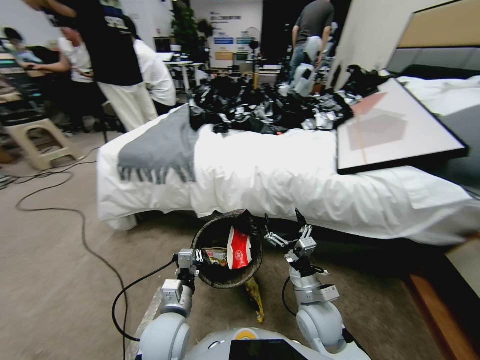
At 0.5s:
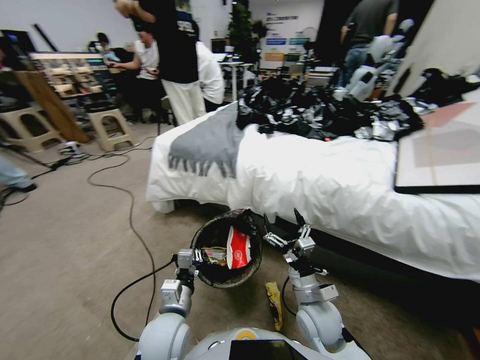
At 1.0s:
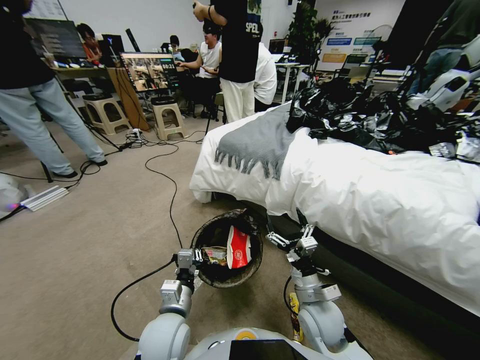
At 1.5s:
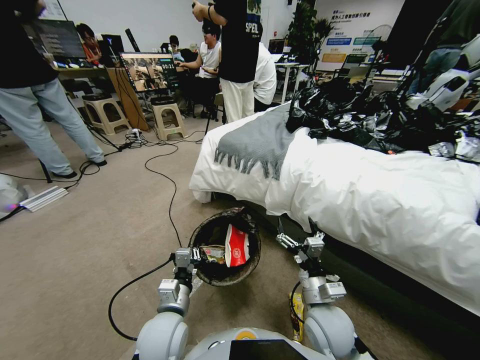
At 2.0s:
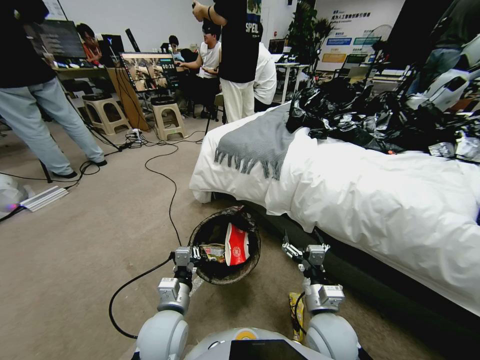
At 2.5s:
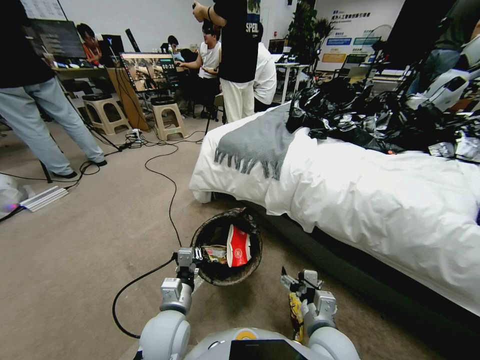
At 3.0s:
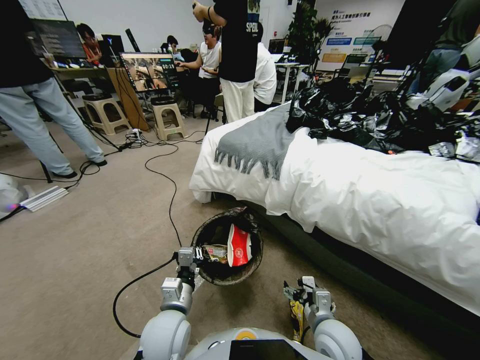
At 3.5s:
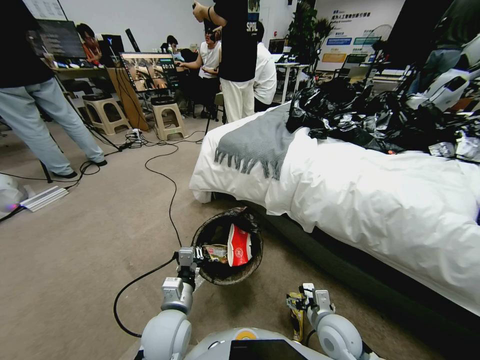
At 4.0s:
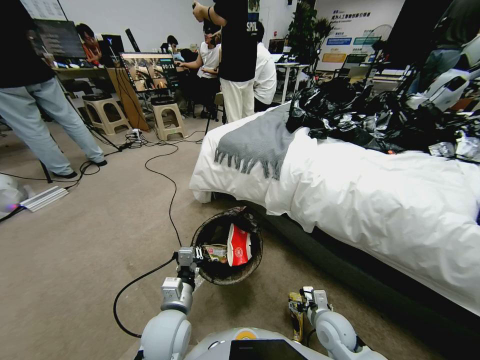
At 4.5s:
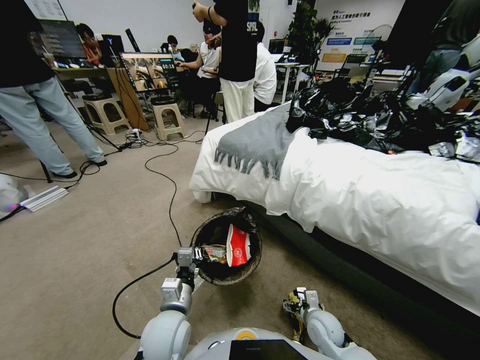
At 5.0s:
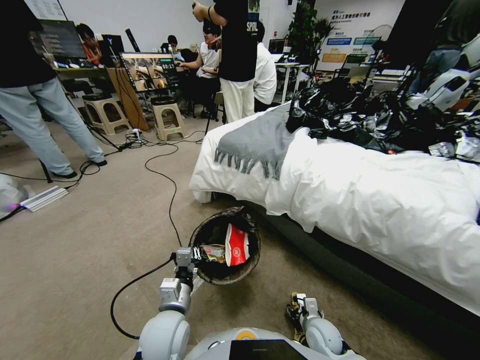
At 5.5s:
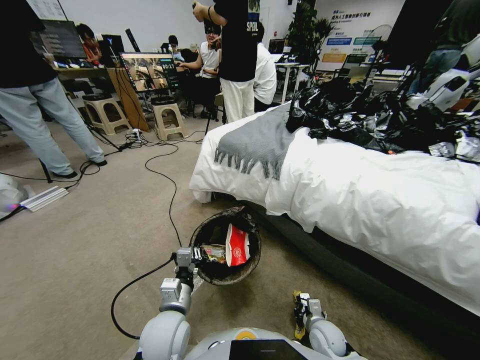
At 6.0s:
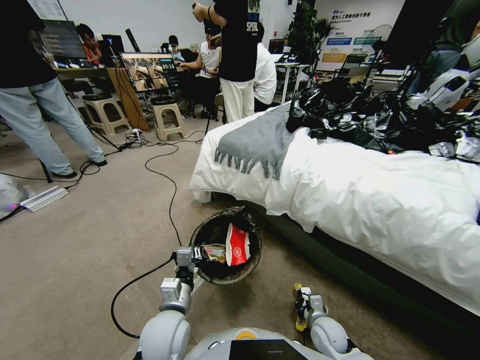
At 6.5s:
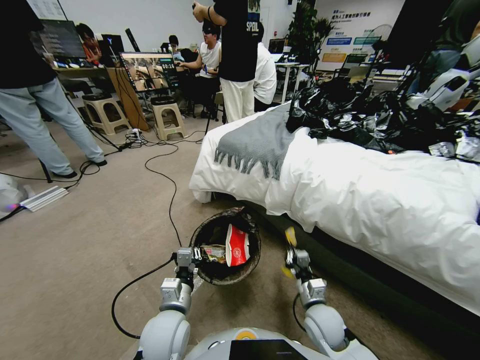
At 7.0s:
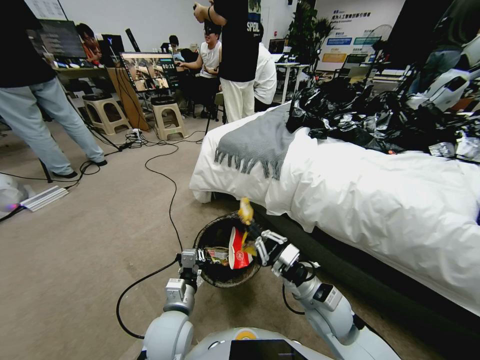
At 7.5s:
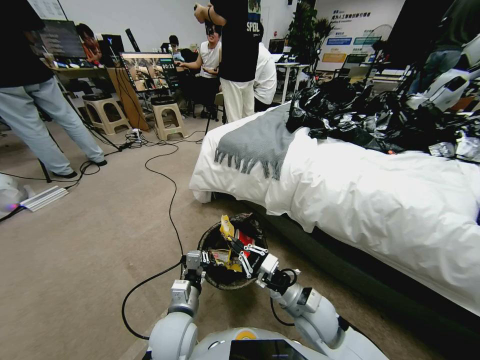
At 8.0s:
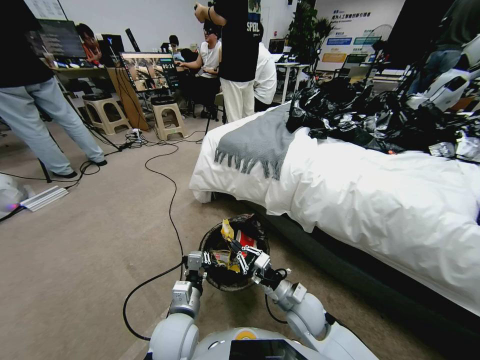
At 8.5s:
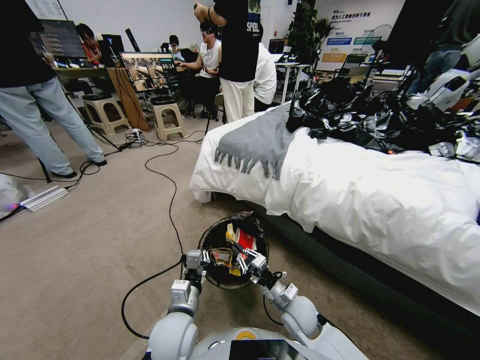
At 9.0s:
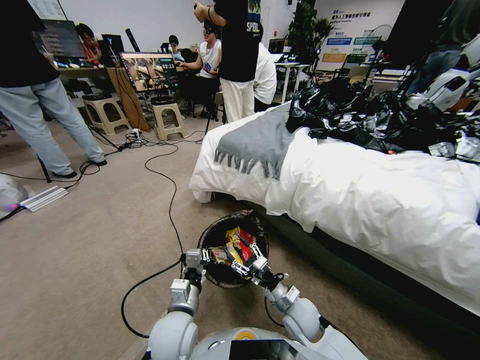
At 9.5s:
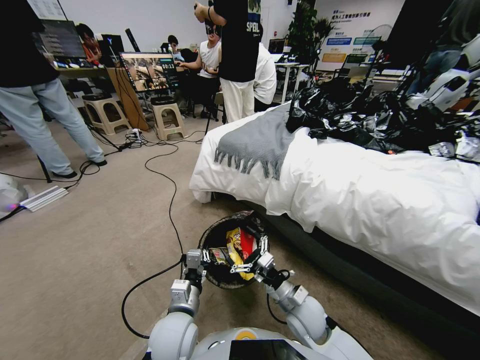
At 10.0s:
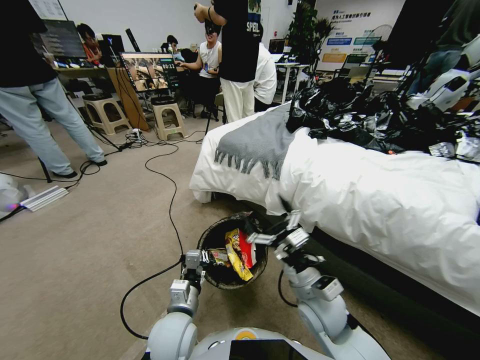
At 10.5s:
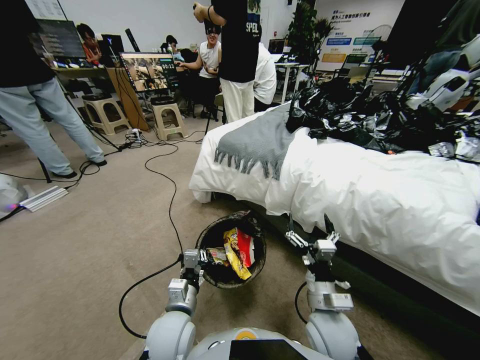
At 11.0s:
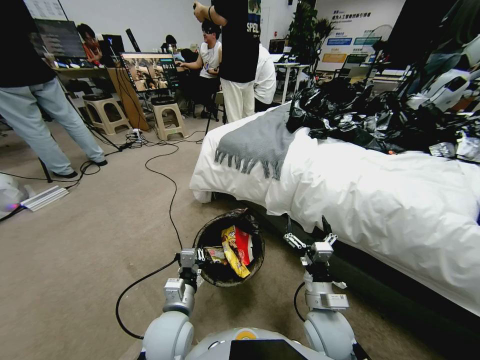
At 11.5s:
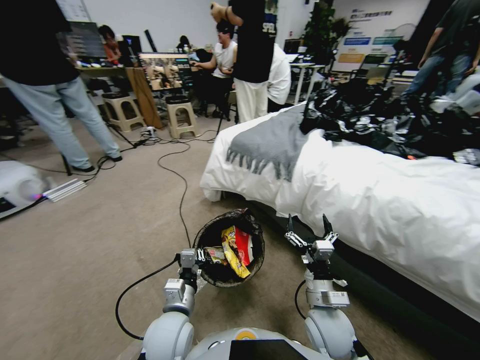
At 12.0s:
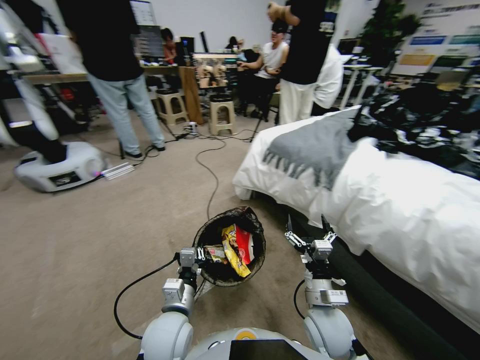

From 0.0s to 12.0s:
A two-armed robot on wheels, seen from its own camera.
Task of the whole recording: Pick up the trash bin, then pick up the garbage from the floor and place it into the trash bin.
From 2.0s to 4.0s: The right gripper is displaced downward and to the right by roughly 15 cm.
From 4.0s to 6.0s: The right gripper closes up.
From 6.0s to 8.0s: The right gripper goes some 15 cm to the left and upward.
From 8.0s to 10.0s: The right gripper travels upward by some 10 cm, and opens up.
From 10.0s to 12.0s: The right gripper travels downward by some 5 cm.

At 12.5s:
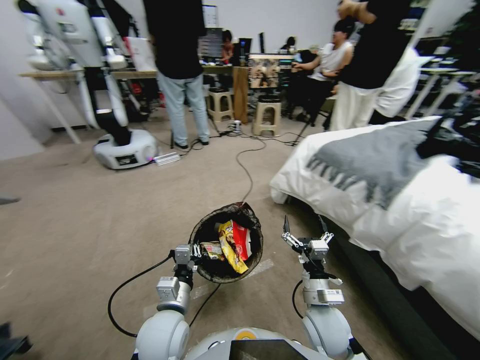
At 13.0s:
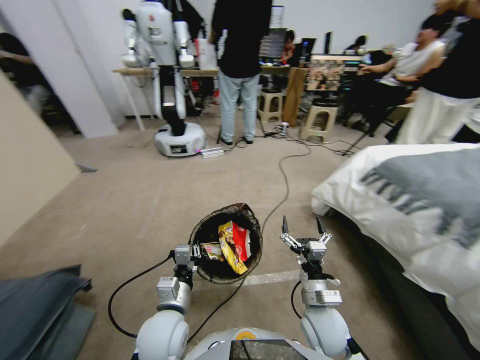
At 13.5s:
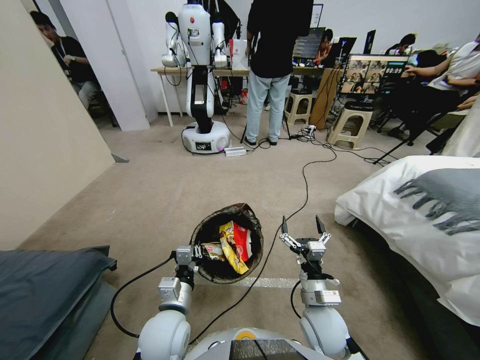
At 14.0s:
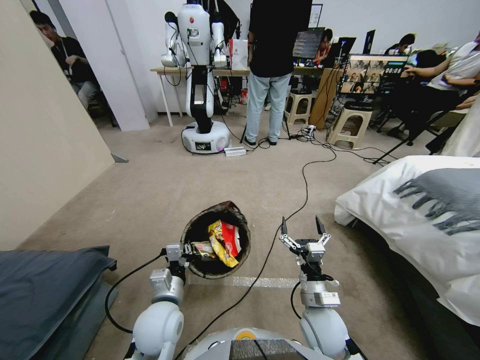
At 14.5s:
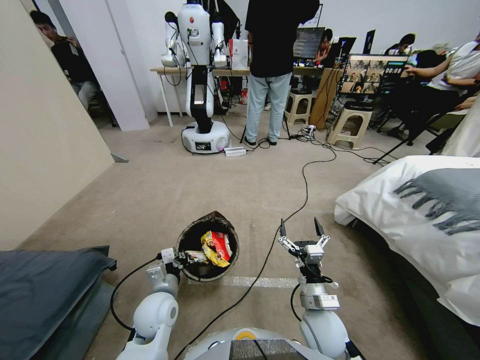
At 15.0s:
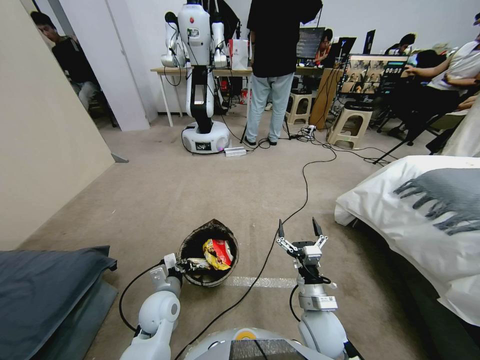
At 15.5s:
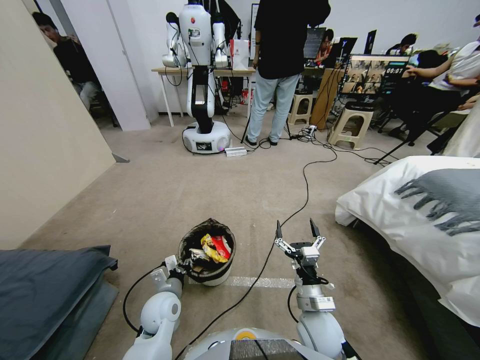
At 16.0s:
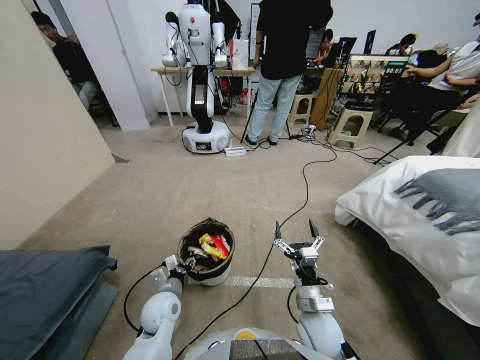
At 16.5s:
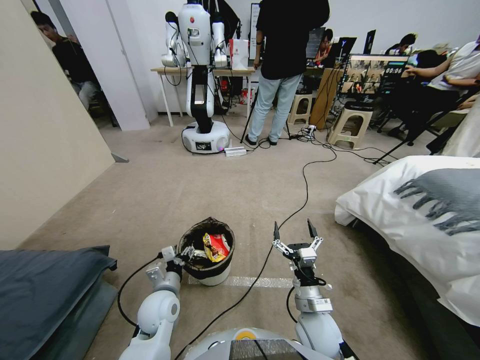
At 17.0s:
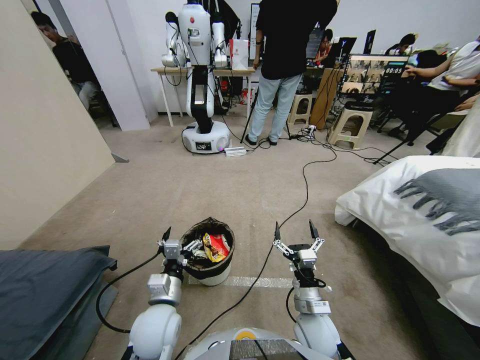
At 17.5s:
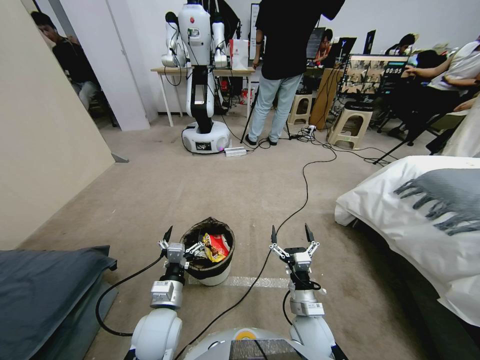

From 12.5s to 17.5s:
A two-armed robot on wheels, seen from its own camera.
Task of the whole recording: Pick up the trash bin, then pick up the garbage from the floor and place it into the trash bin.
From 12.5s to 15.0s: The left gripper moves downward, forward and to the left, approximately 10 cm.
From 15.0s to 17.5s: The left gripper heads backward and upward, covering approximately 5 cm, and opens up.

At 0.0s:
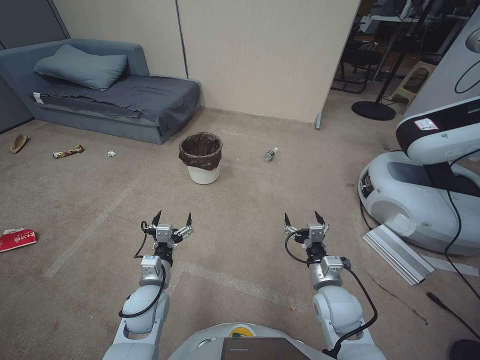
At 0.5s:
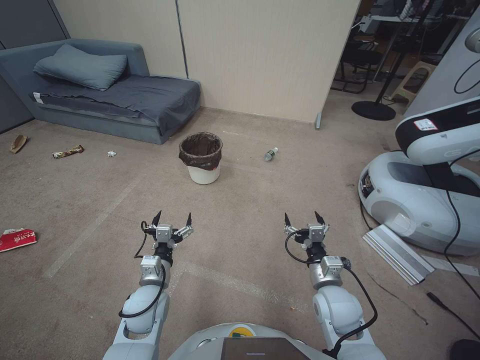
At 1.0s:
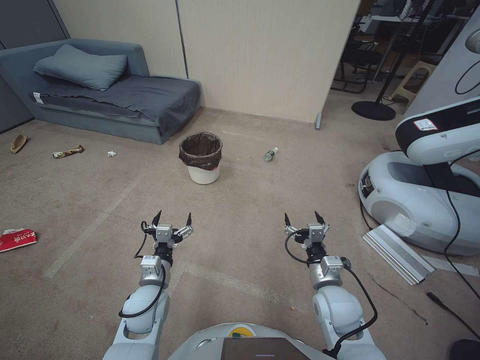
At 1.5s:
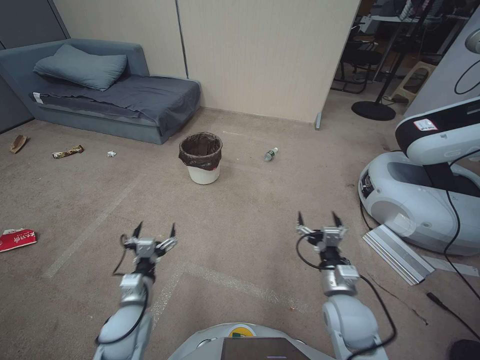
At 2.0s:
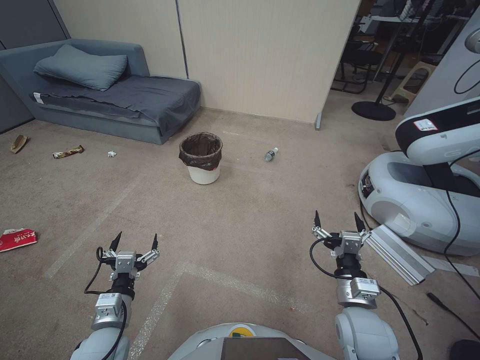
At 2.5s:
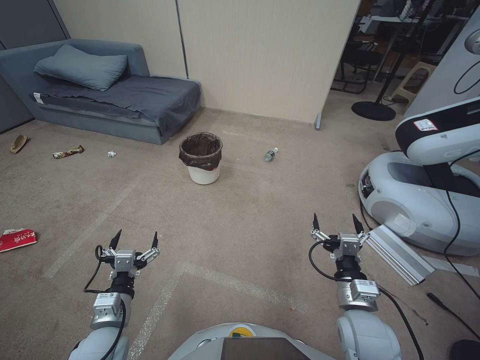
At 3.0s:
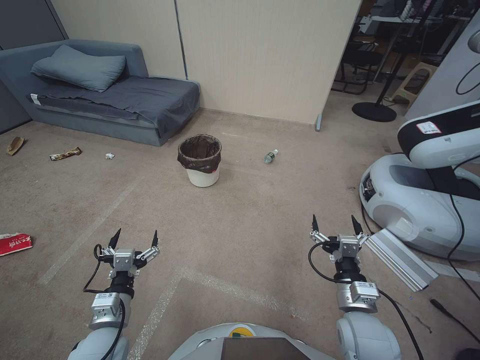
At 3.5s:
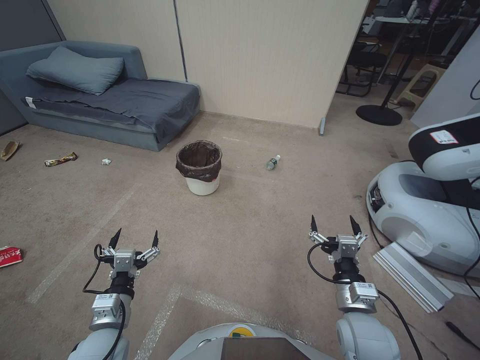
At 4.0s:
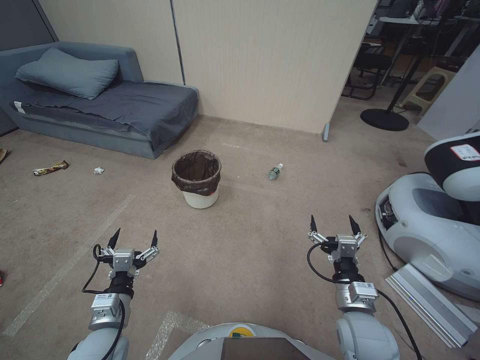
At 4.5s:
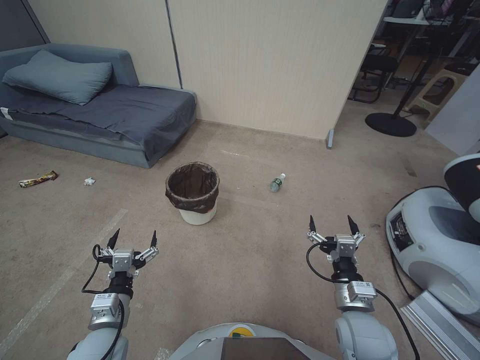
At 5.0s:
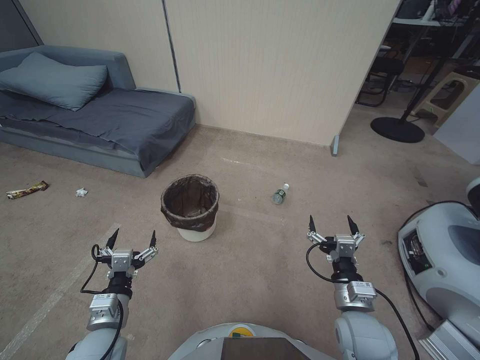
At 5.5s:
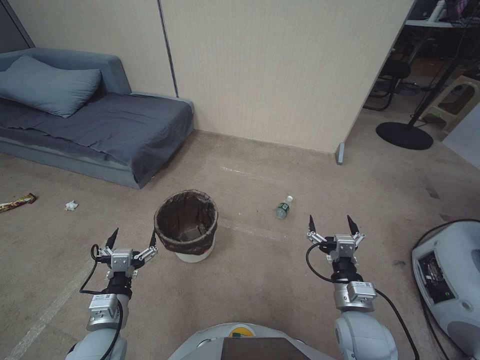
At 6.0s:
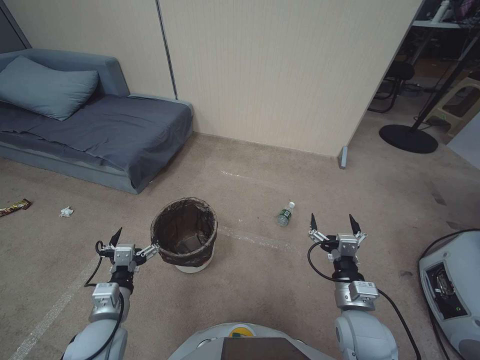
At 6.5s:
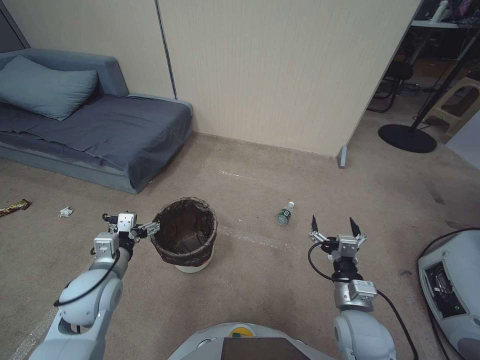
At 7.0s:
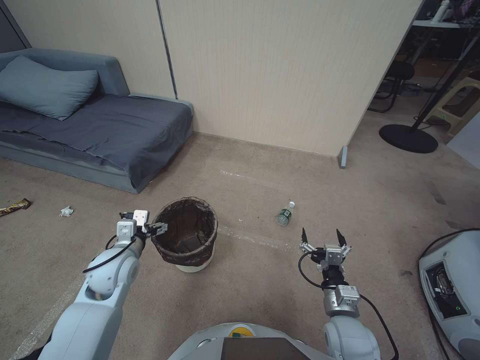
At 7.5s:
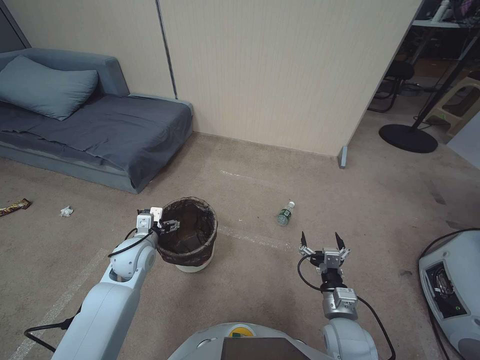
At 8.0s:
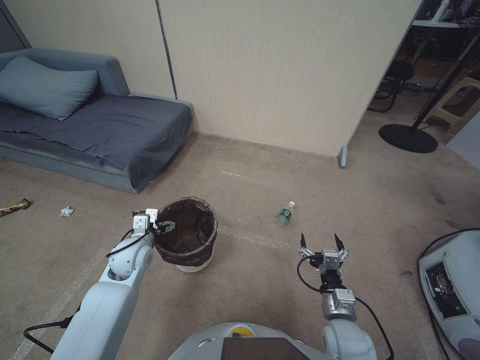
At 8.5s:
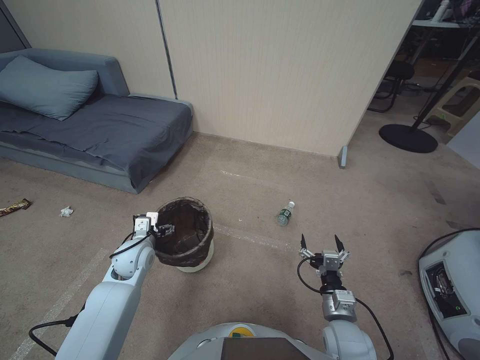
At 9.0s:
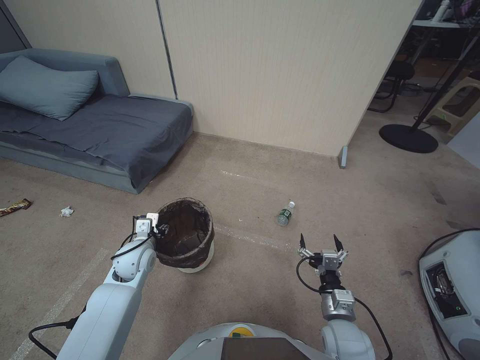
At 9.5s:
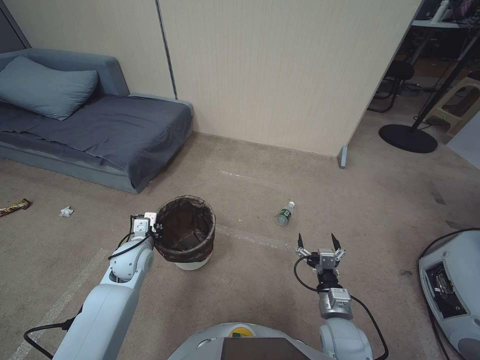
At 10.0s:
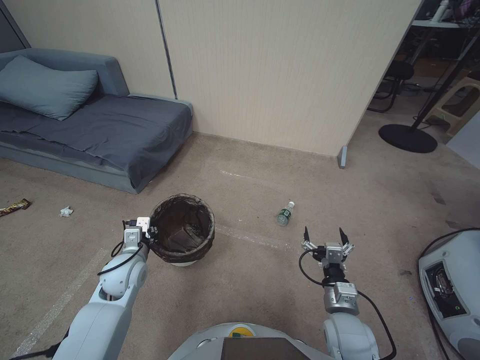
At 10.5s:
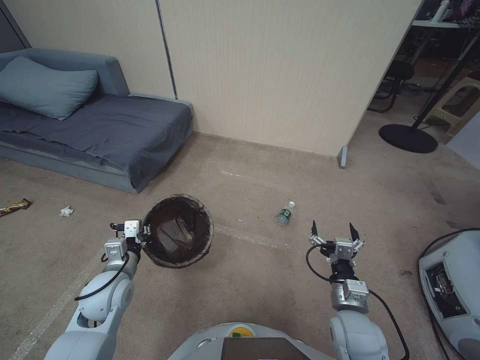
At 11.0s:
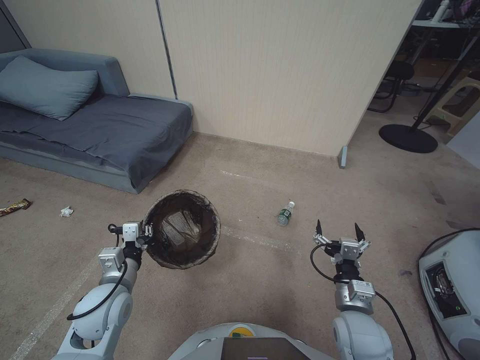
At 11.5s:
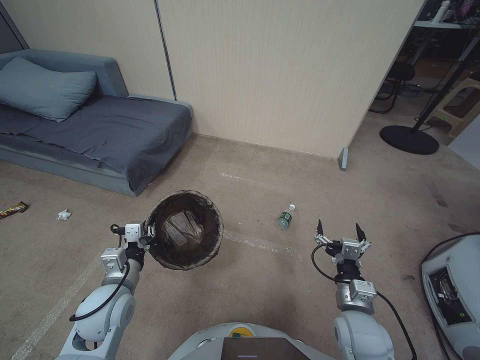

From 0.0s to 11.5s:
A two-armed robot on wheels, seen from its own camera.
Task of the whole recording: Pick up the trash bin, then pick up the garbage from the floor and place it into the trash bin.
From 6.0s to 7.5s: The left gripper moves forward, some 15 cm, while the right gripper heads downward, covering roughly 5 cm.
From 7.5s to 9.5s: The left gripper closes up.
From 9.5s to 11.5s: The right gripper travels upward by about 5 cm; the left gripper heads backward, covering some 10 cm.
